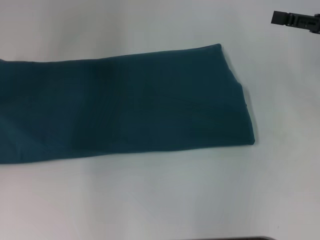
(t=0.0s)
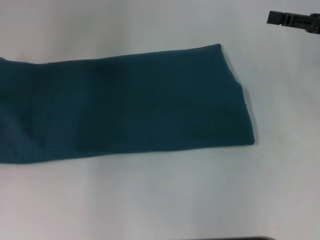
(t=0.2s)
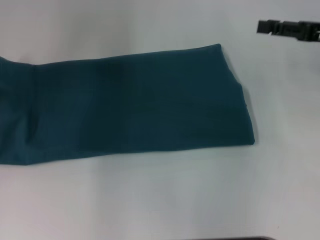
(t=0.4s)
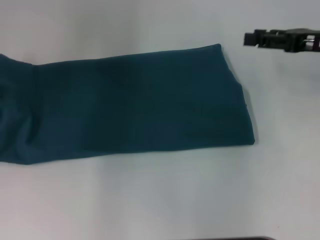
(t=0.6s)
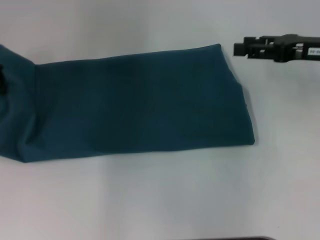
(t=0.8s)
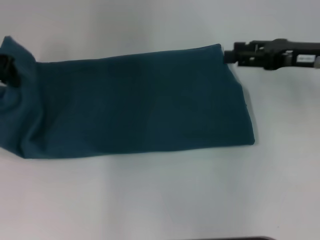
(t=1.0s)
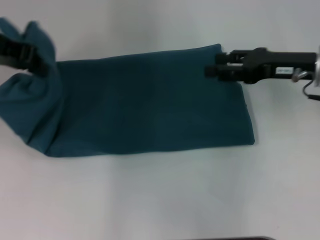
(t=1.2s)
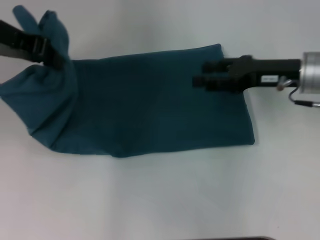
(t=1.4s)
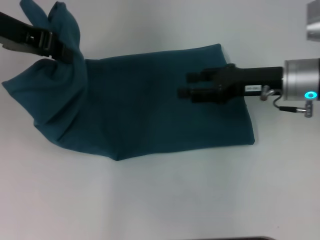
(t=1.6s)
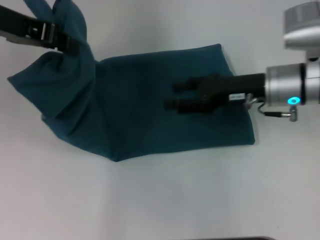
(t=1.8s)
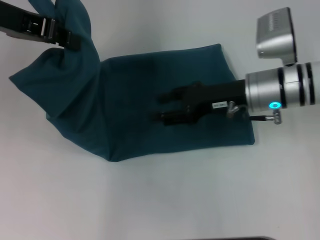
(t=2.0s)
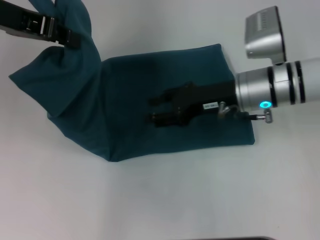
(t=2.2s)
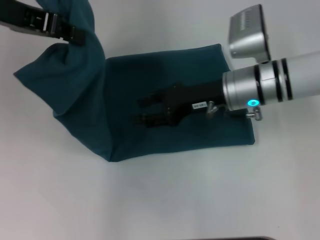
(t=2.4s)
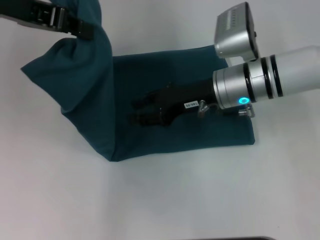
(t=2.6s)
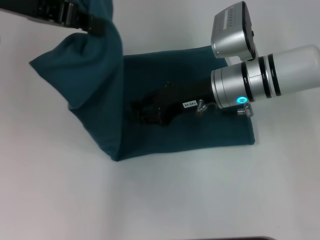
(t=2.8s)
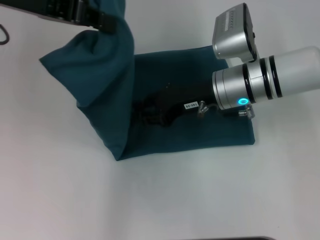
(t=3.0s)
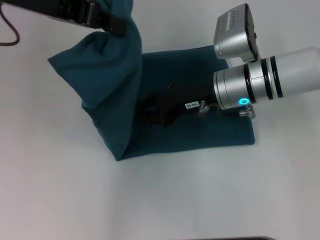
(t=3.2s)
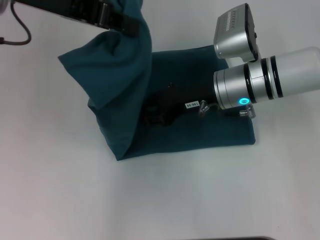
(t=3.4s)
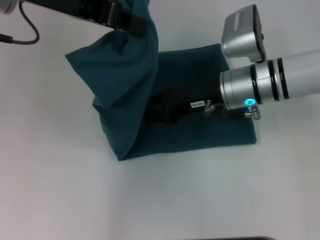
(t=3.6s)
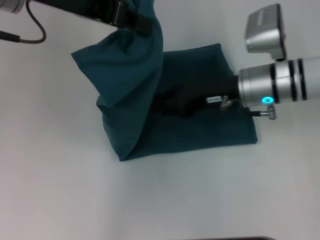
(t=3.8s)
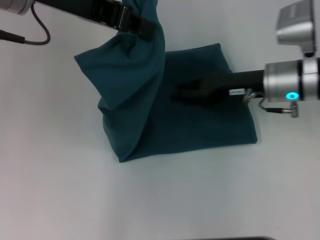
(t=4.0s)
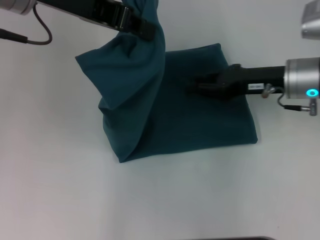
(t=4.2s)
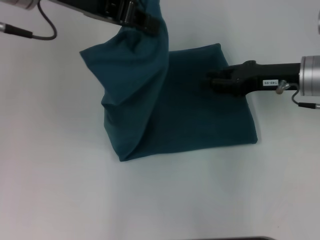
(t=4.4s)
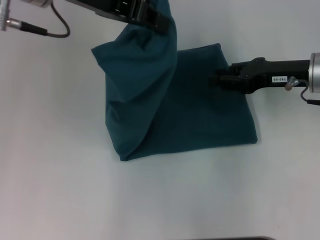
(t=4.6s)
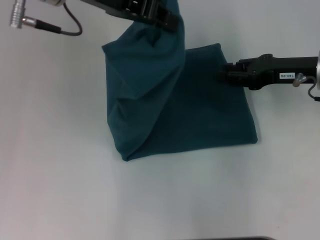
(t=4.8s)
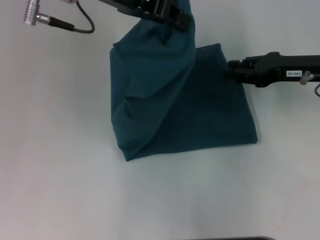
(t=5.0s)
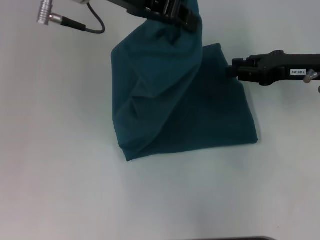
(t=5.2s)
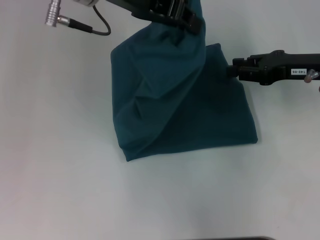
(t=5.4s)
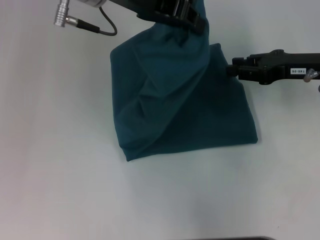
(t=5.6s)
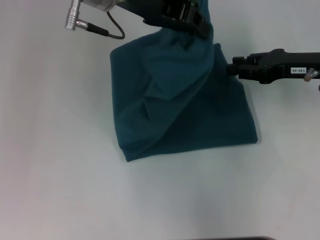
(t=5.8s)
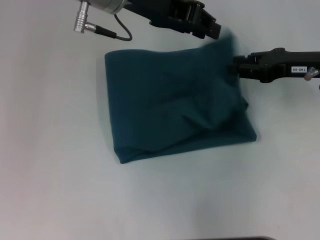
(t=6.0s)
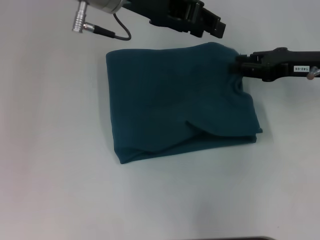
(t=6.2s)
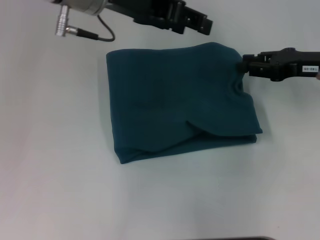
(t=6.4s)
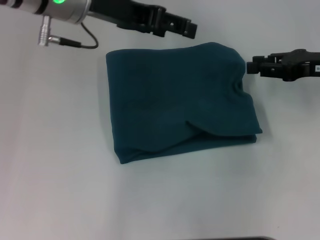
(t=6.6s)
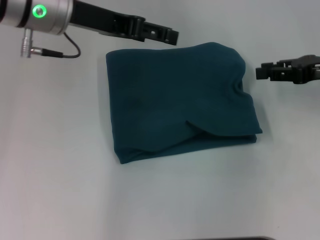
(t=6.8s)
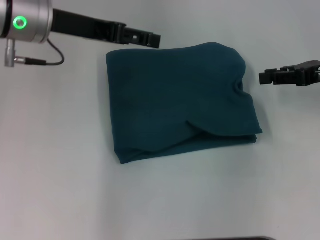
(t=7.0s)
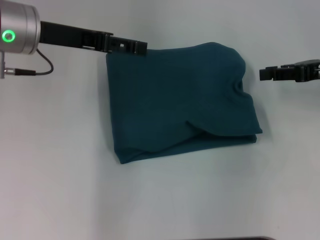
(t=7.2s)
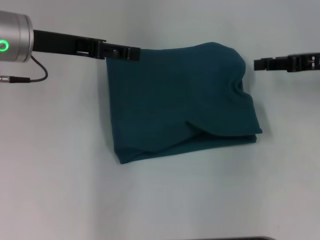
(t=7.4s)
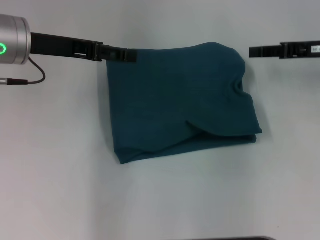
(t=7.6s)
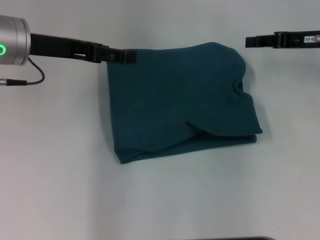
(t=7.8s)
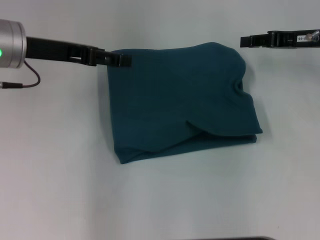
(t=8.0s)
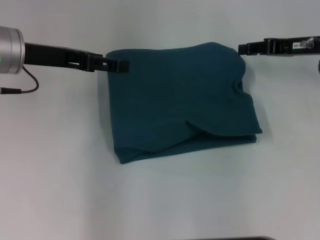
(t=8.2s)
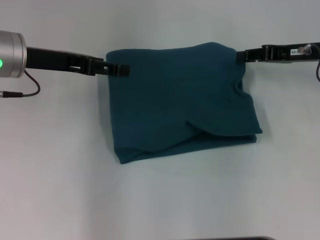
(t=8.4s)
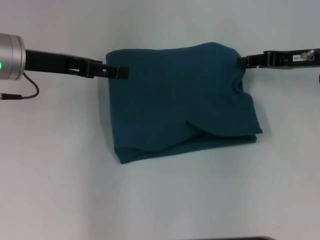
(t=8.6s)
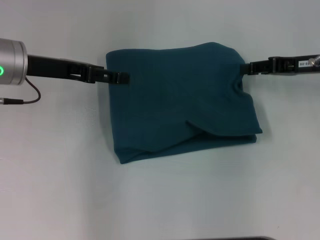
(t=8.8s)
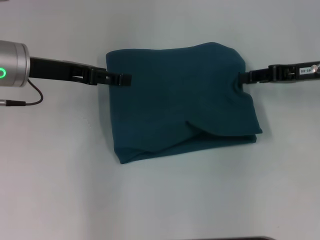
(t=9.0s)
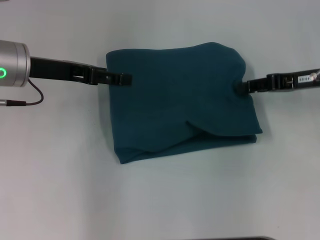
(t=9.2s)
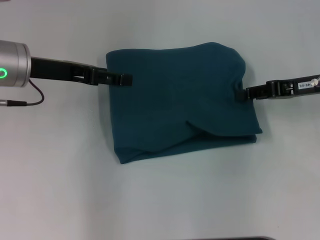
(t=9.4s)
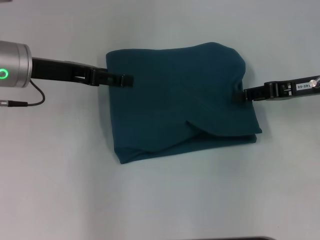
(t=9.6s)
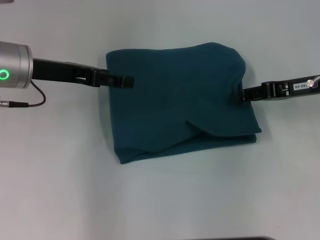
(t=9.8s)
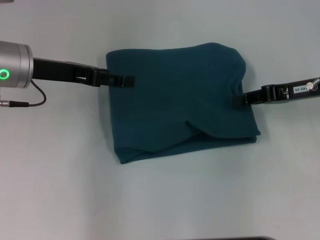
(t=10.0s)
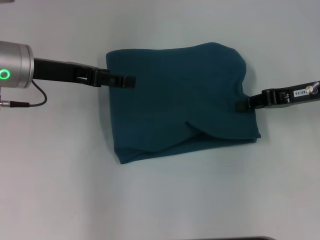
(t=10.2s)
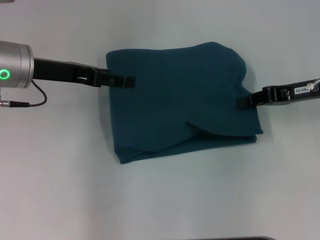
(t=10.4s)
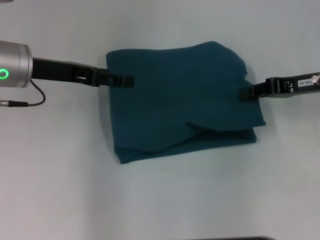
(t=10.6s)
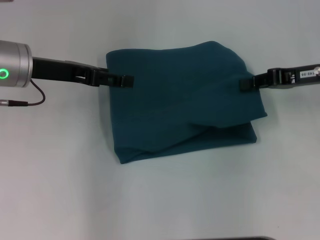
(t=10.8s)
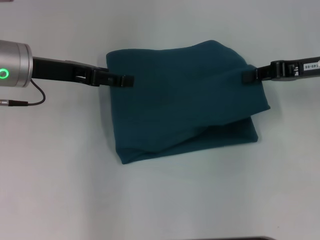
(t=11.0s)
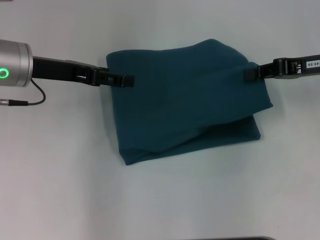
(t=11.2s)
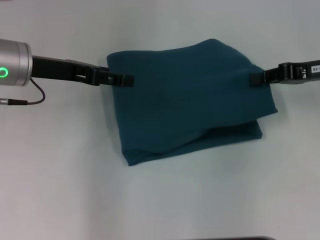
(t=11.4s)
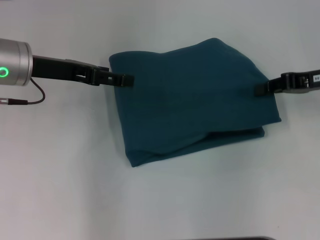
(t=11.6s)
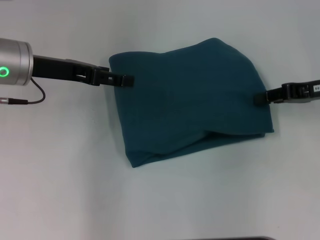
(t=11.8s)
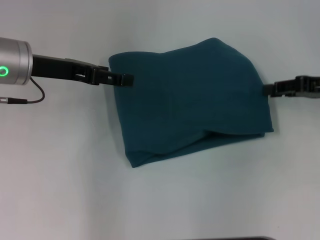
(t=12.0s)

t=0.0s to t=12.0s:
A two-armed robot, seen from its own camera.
Step, t=0.0s to t=3.6s: Press the middle of the clothes with your right hand.
Step, t=3.8s to t=6.2s: Fold the clothes to the left.
t=0.0s to t=1.6s: The right gripper goes some 15 cm to the left and downward; the left gripper goes roughly 10 cm to the right and upward.
t=1.6s to t=3.0s: The right gripper goes some 10 cm to the left.
t=3.0s to t=4.4s: The right gripper heads to the right, covering approximately 10 cm.
t=4.4s to t=6.0s: The left gripper is displaced to the right by approximately 5 cm.
t=6.0s to t=7.6s: The left gripper is displaced to the left and downward by roughly 15 cm, and opens its fingers.
t=7.6s to t=12.0s: The grippers stay close to where they were, moving slightly.

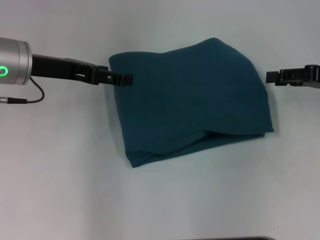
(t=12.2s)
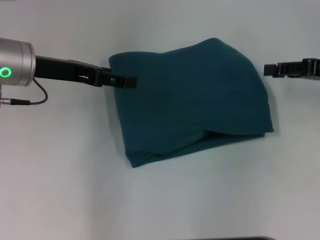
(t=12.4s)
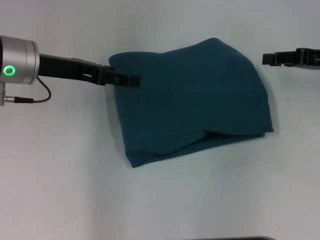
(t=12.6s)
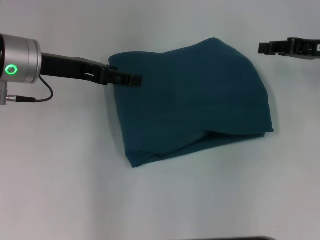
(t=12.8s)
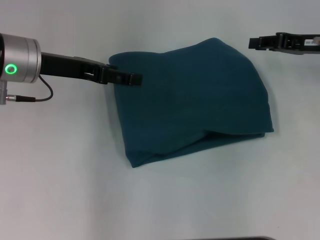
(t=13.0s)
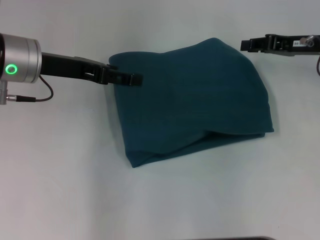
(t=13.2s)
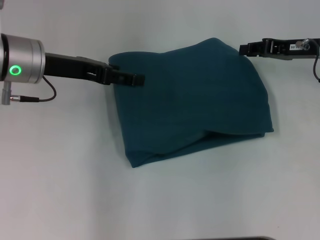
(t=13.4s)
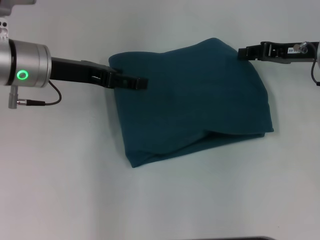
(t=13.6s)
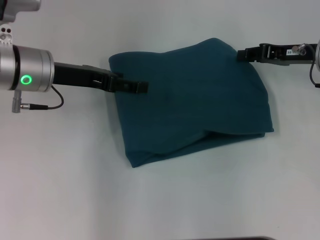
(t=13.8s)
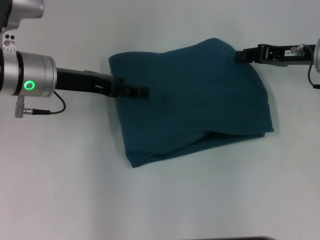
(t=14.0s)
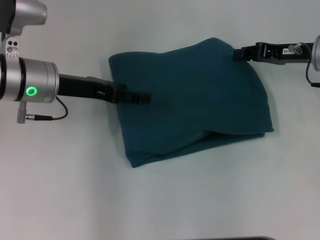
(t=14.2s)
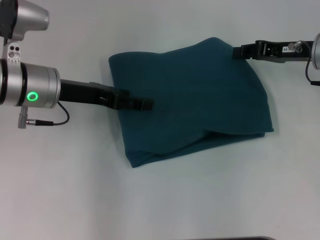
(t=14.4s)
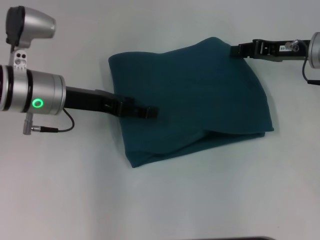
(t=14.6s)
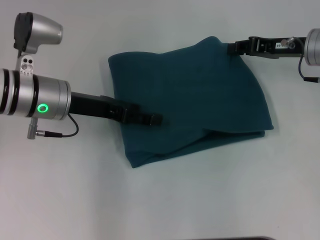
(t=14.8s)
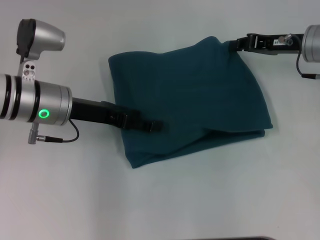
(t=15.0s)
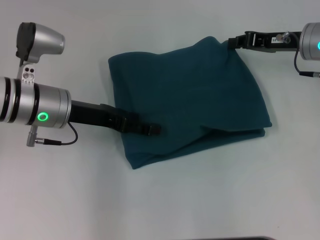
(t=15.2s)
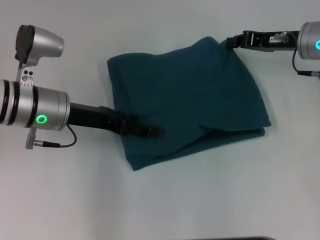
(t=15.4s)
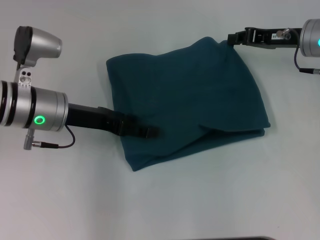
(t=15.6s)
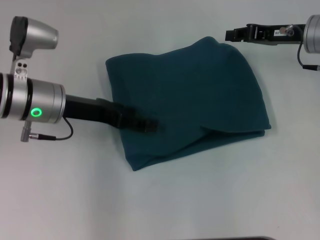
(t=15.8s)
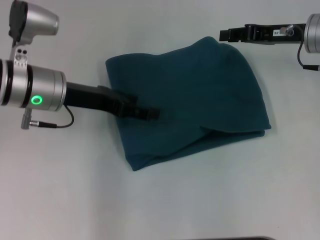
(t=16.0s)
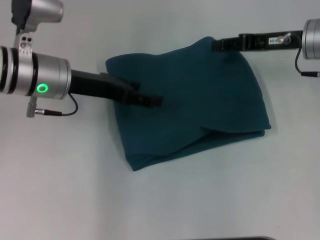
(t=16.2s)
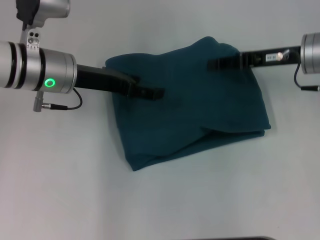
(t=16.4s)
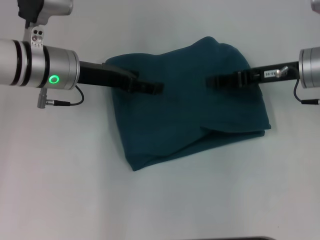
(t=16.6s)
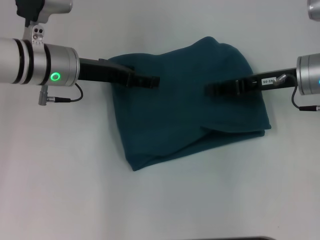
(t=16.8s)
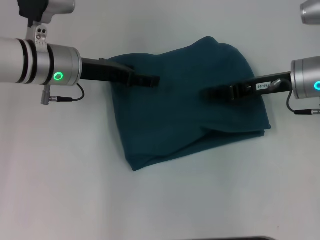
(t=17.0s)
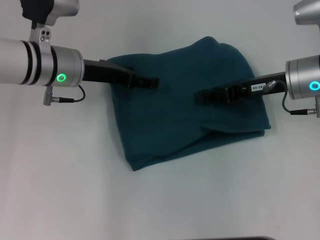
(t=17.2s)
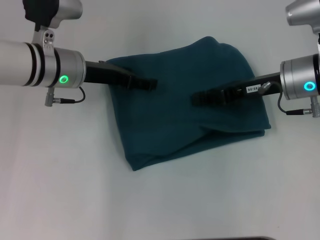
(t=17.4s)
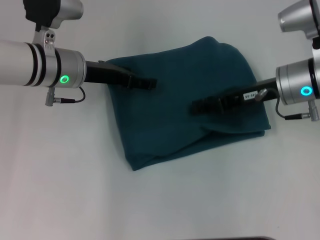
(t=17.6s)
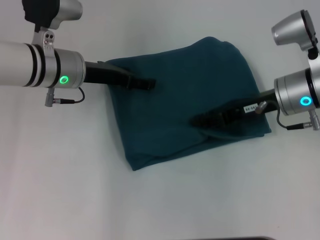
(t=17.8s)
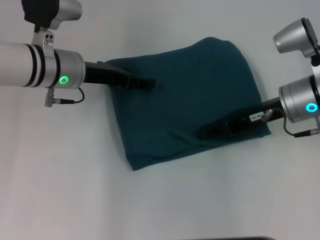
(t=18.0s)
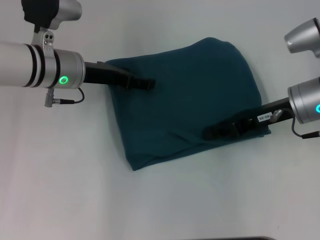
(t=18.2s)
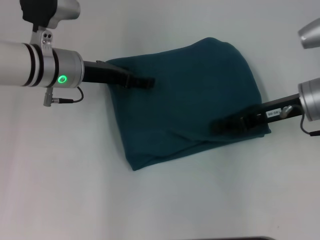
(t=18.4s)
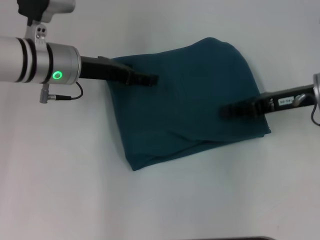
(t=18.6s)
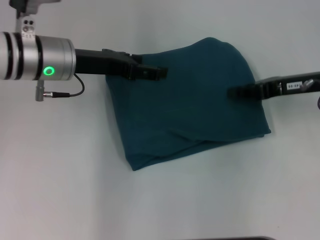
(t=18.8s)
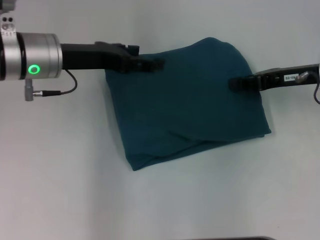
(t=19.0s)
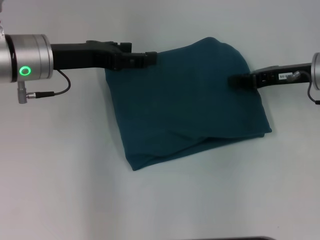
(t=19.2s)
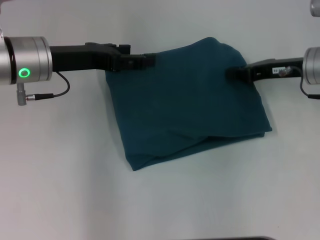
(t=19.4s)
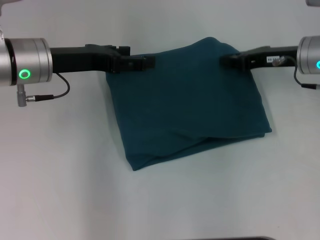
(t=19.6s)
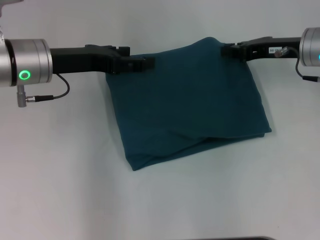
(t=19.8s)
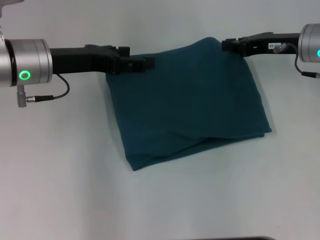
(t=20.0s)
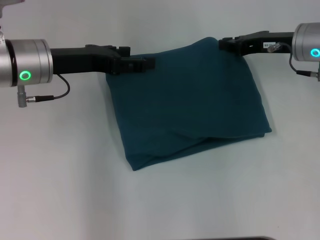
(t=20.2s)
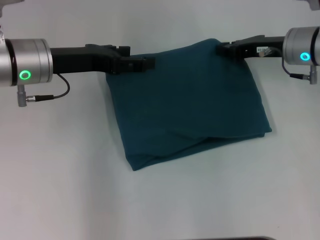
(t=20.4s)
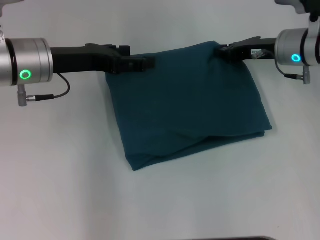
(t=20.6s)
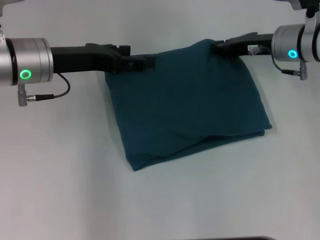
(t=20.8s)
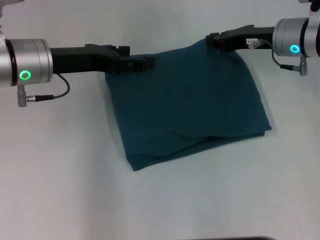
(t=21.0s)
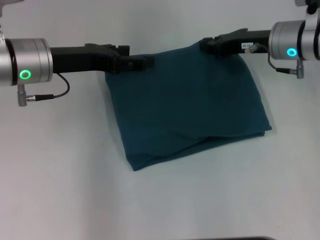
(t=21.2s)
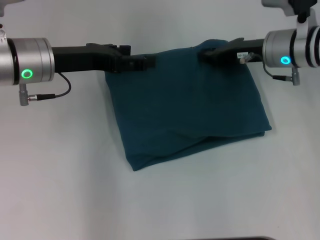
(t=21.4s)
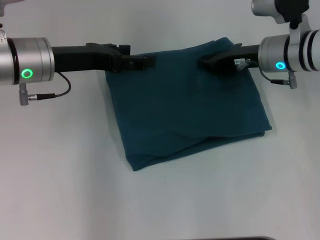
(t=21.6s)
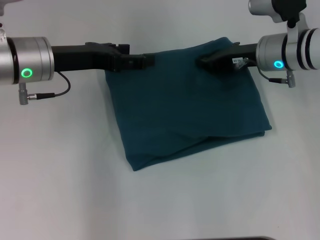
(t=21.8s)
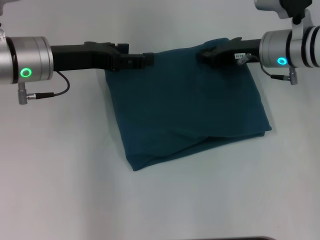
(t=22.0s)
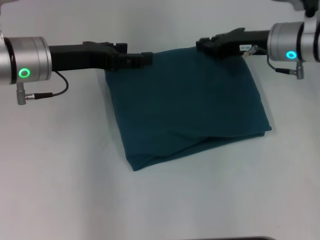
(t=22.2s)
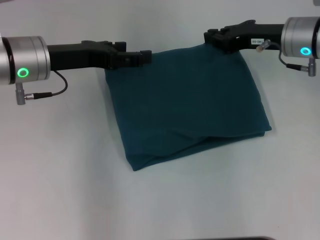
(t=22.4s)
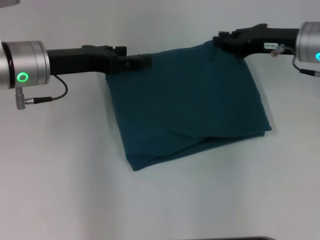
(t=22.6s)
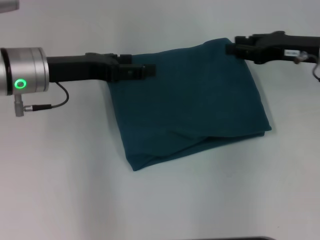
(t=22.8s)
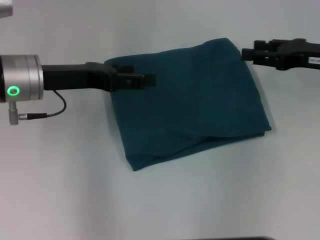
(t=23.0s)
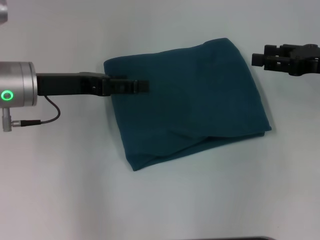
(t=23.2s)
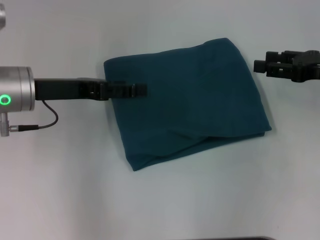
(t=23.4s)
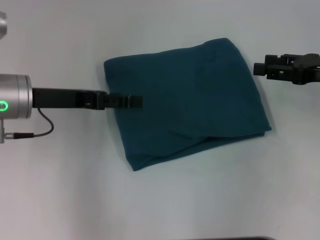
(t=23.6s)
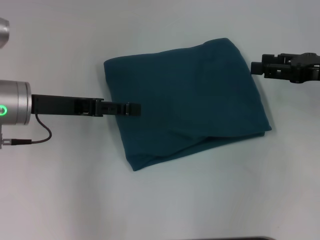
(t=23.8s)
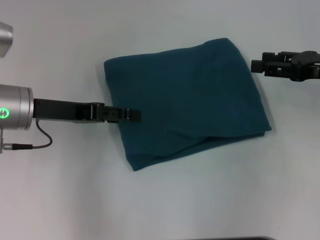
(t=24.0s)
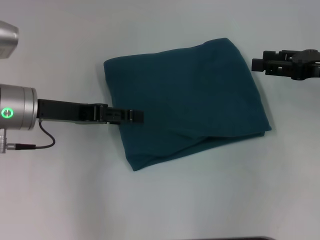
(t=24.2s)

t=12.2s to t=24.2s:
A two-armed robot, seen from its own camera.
t=12.2s to t=13.8s: The right gripper shifts some 10 cm forward and to the left.
t=13.8s to t=15.2s: The grippers make only small movements.
t=16.6s to t=18.2s: The grippers make only small movements.
t=18.2s to t=19.8s: The right gripper heads forward, covering about 5 cm. Meanwhile the left gripper changes place by approximately 5 cm.
t=19.8s to t=22.6s: The grippers move only a little.
t=22.6s to t=24.2s: The right gripper moves to the right and backward, approximately 10 cm, and opens.
